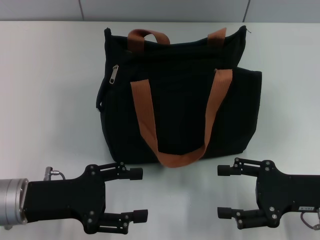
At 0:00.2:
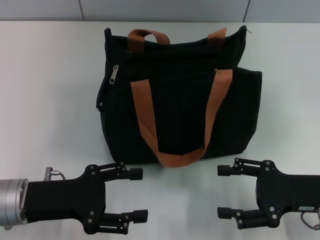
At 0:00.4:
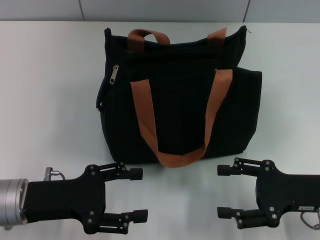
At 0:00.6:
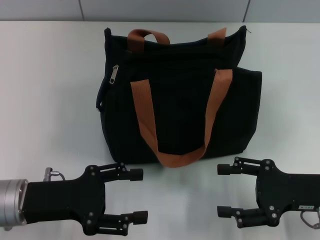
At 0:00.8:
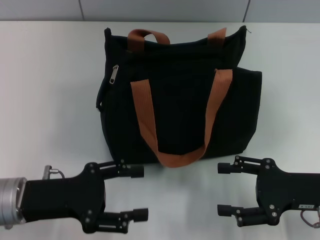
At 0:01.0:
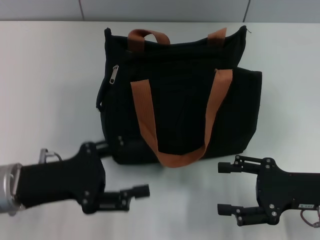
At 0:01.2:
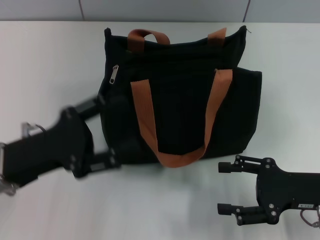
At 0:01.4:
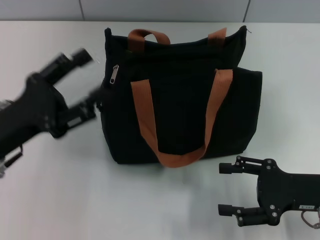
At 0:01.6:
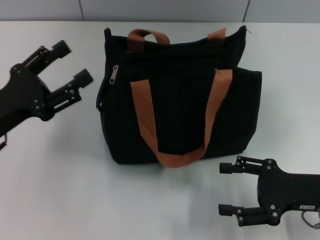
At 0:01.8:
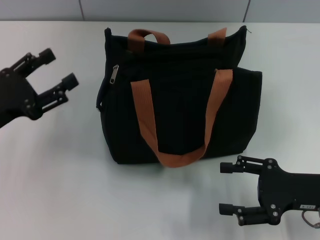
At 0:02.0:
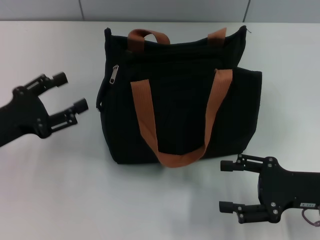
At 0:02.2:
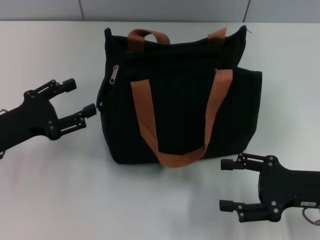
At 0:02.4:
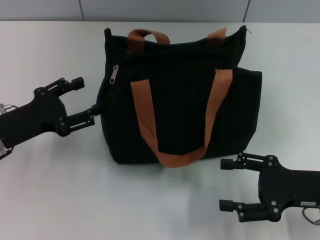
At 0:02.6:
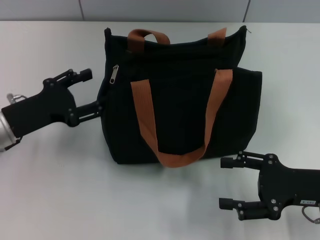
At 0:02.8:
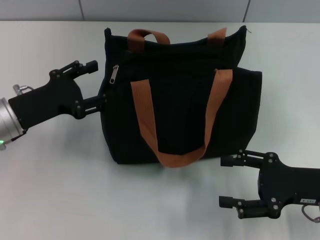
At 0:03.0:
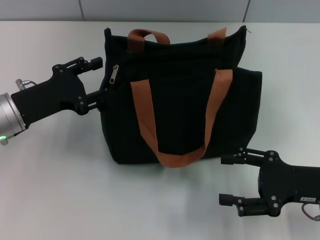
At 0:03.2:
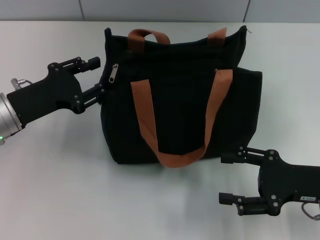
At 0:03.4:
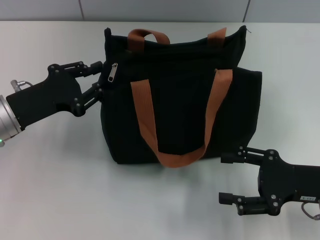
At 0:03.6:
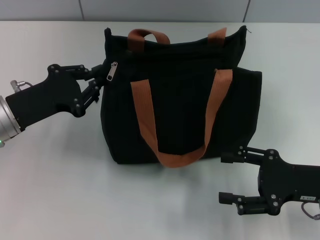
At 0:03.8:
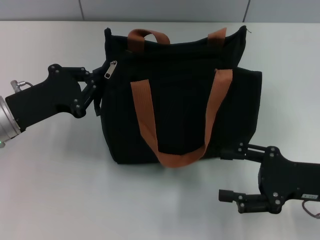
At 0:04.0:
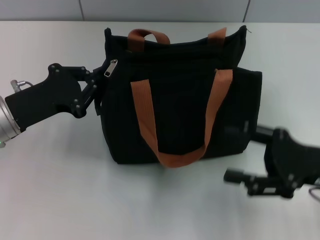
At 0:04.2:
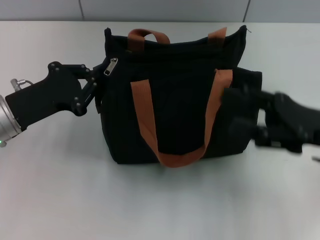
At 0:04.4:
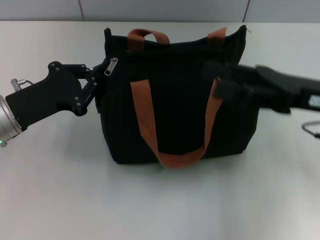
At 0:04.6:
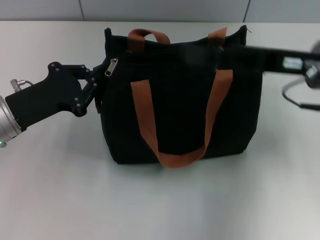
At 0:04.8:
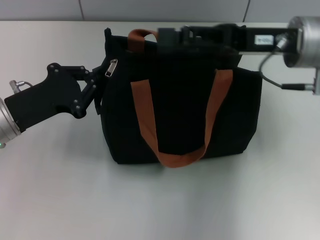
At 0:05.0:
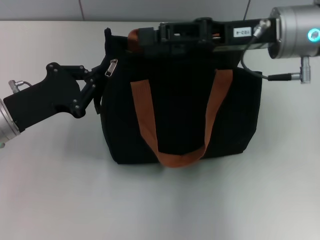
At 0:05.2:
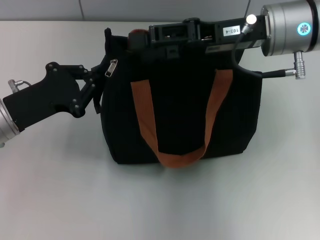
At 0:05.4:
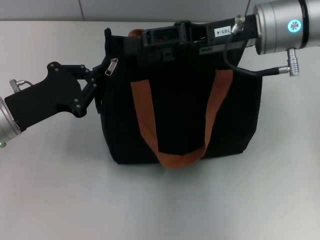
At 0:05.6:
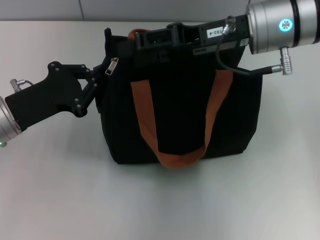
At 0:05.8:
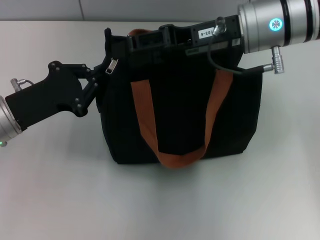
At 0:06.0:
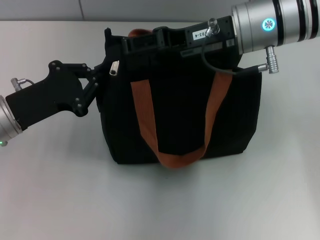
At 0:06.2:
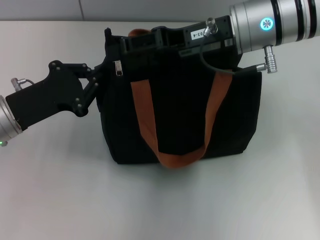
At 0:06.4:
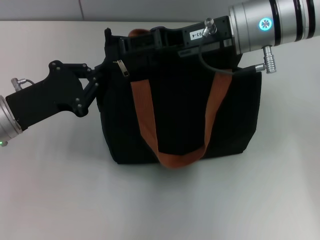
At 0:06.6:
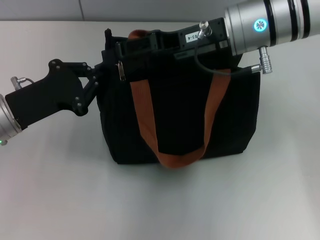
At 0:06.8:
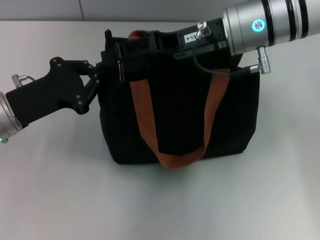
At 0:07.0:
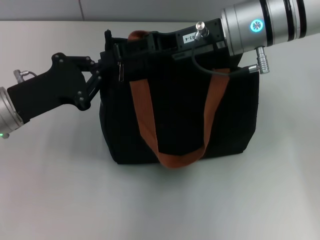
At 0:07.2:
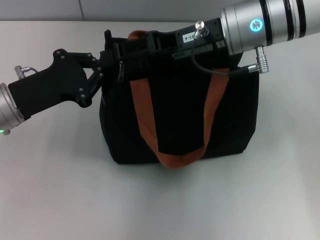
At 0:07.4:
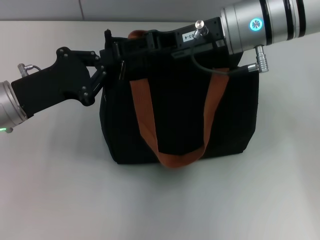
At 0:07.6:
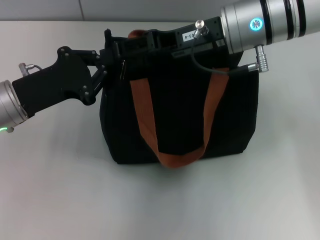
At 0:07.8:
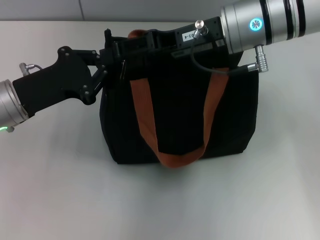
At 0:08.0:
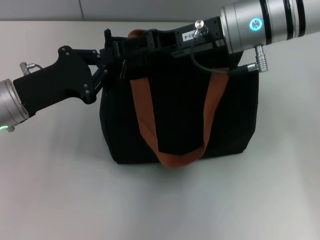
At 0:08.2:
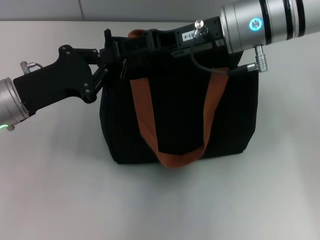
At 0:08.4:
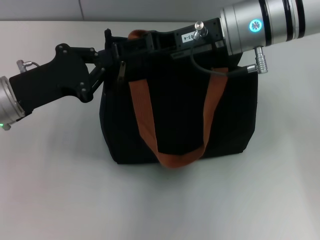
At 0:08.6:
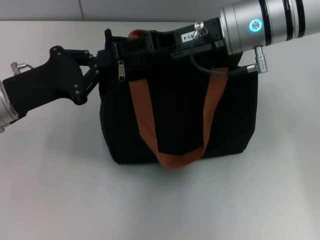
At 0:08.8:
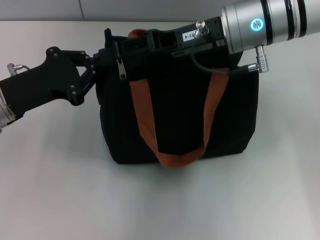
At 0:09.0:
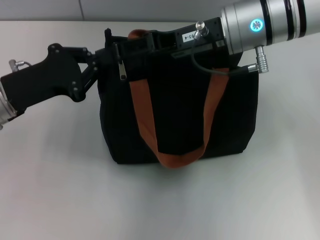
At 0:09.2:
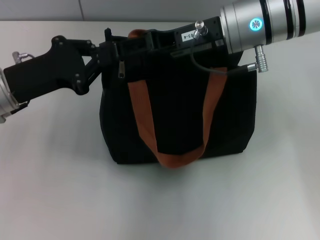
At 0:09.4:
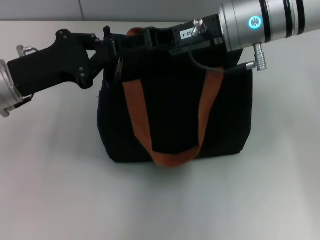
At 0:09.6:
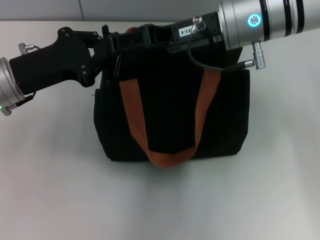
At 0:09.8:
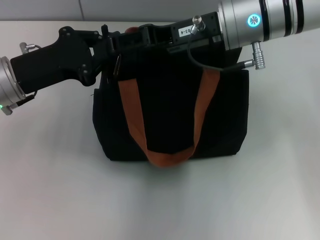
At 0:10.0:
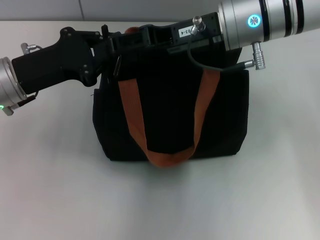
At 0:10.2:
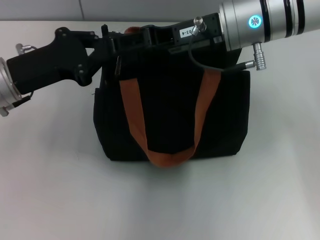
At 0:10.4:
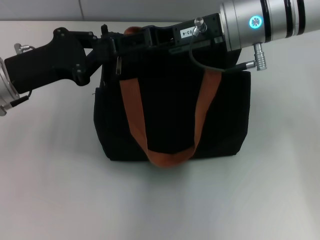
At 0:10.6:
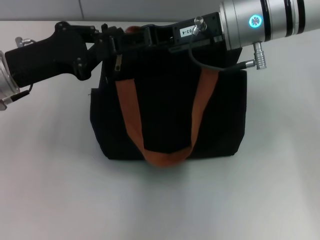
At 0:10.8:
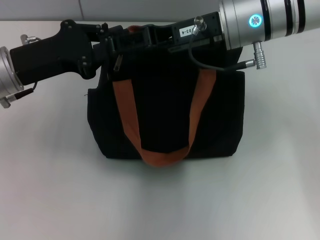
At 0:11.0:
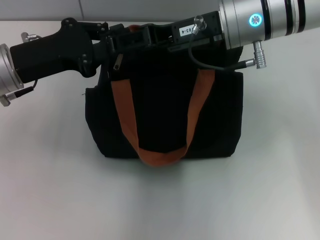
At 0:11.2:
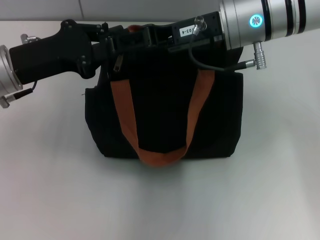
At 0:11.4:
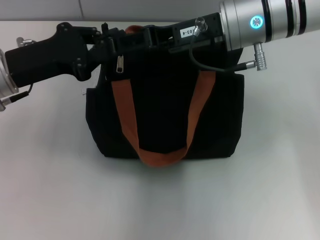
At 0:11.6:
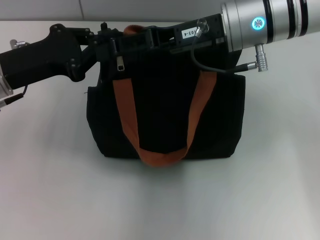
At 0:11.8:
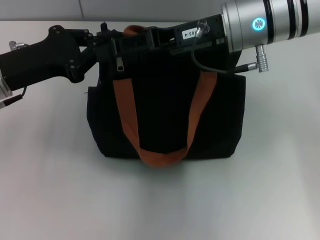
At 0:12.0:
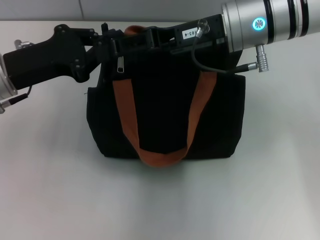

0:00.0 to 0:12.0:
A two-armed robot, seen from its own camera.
0:00.0 to 0:01.6: The left gripper changes place by roughly 5 cm.
0:01.6 to 0:03.0: The left gripper shifts roughly 5 cm forward.
0:03.0 to 0:04.4: The right gripper goes about 10 cm upward and forward, while the left gripper closes up.
0:04.4 to 0:06.0: The right gripper moves to the left, forward and upward, approximately 15 cm.
0:06.0 to 0:10.4: The grippers move only a little.
0:10.4 to 0:12.0: There are only small adjustments of the grippers.

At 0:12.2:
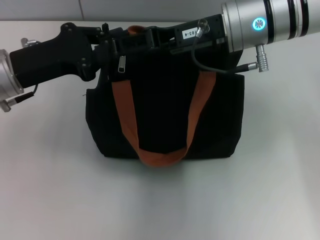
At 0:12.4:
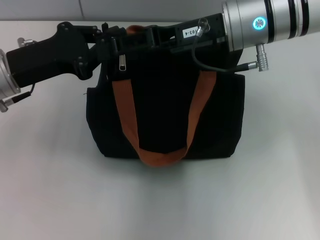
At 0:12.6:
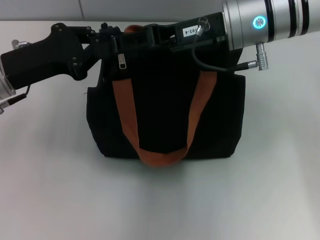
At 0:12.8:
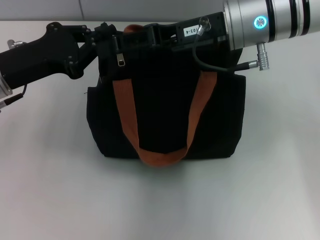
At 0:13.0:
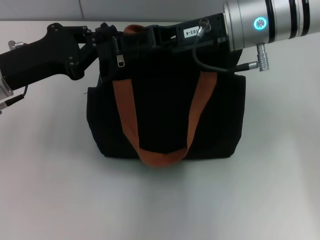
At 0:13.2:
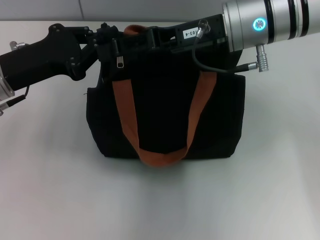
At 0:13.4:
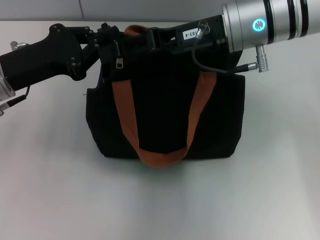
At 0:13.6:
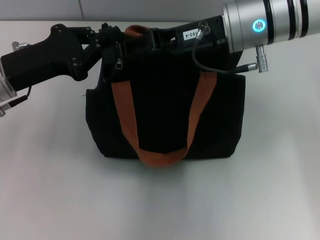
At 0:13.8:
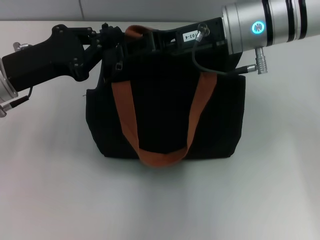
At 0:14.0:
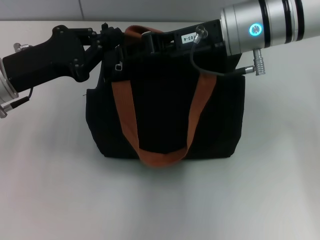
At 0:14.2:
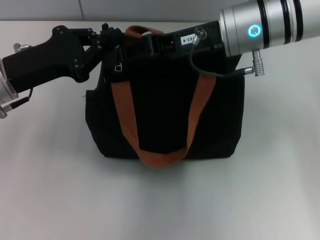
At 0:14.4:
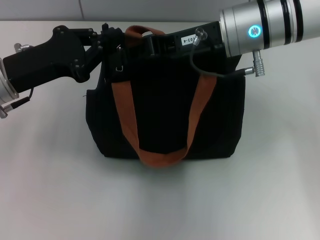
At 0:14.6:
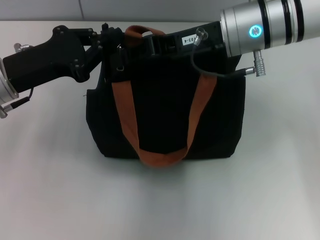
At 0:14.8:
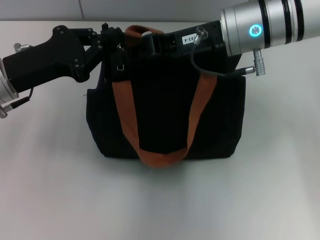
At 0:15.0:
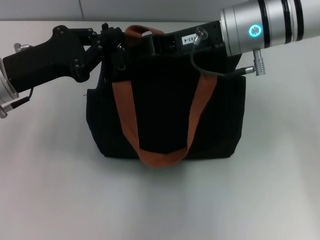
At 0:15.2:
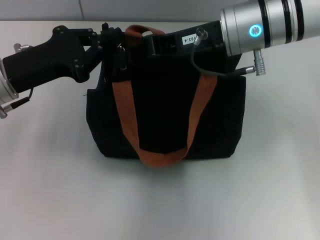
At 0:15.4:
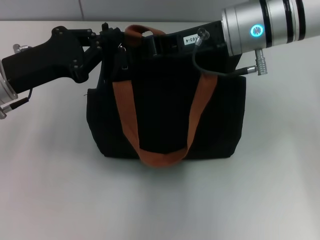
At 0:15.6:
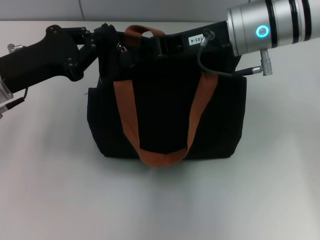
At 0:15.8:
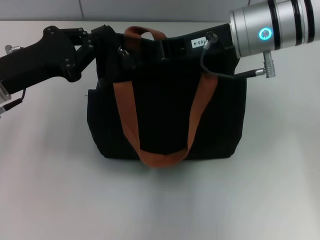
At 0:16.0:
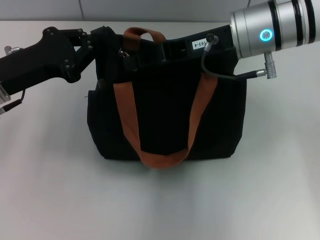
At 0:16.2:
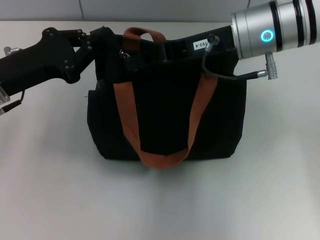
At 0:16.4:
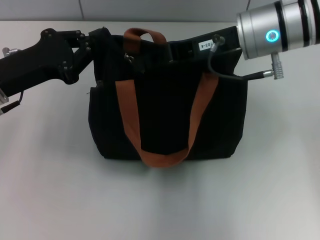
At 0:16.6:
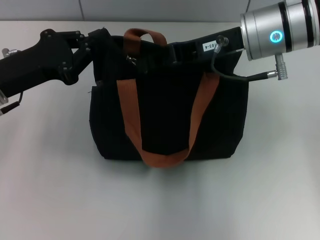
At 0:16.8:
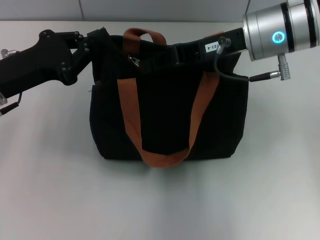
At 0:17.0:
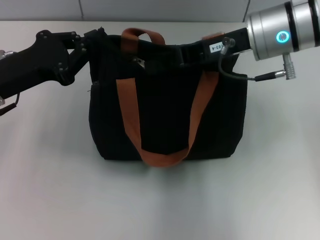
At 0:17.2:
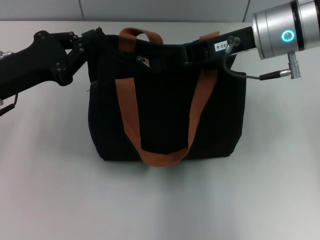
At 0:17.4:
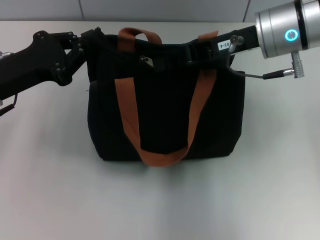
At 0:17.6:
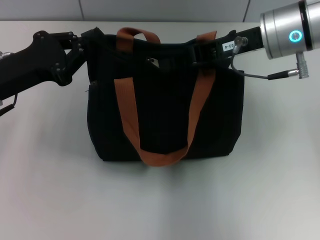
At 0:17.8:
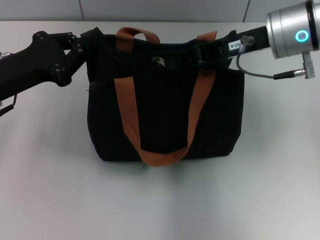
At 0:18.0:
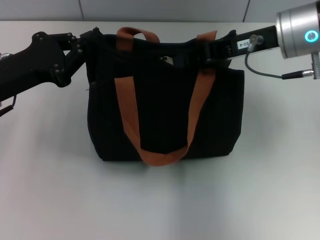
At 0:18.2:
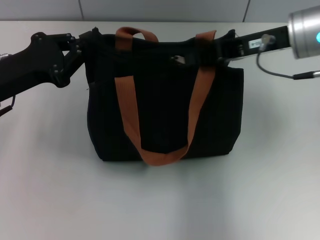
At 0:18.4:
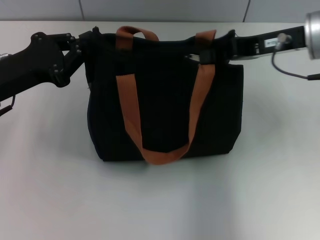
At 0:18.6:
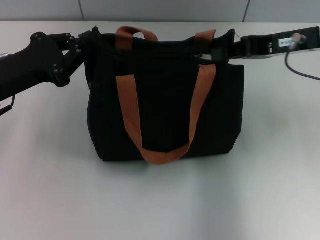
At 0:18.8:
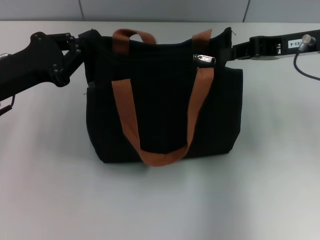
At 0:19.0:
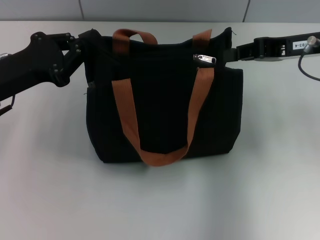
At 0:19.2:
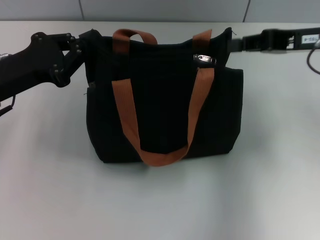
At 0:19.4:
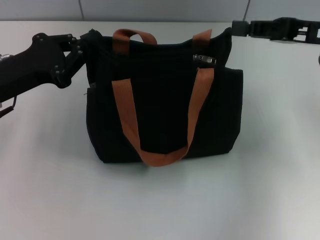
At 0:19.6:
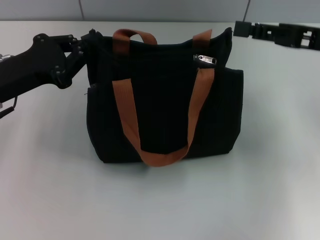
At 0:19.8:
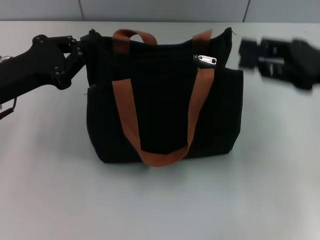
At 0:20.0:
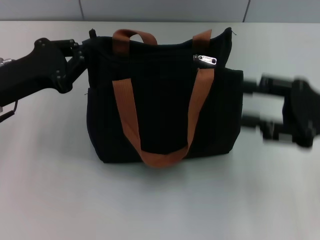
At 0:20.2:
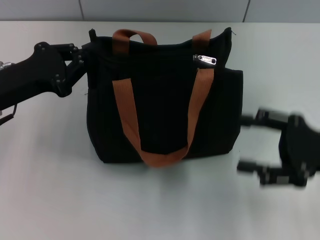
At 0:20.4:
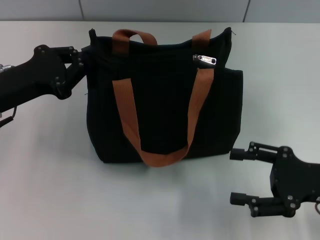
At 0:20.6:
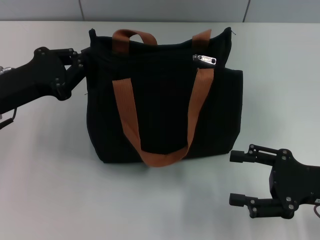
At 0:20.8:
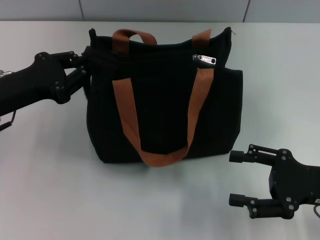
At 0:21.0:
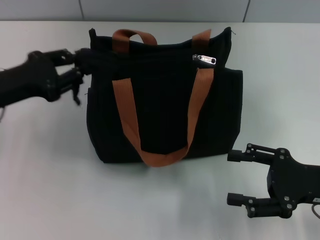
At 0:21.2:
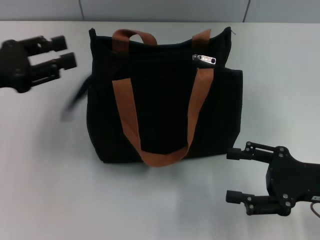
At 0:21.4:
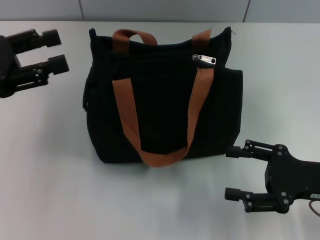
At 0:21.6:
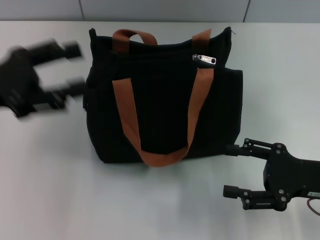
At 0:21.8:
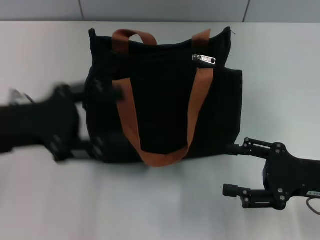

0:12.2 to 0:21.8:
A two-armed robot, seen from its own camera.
Step, 0:12.2 to 0:18.6: Pull up the zipper with your right hand.
0:12.2 to 0:13.8: The right gripper closes.
0:13.8 to 0:15.4: The right gripper closes up.
0:15.4 to 0:17.0: There are only small adjustments of the grippers.
0:17.0 to 0:18.6: The right gripper moves to the right, some 10 cm.
0:18.6 to 0:20.2: The right gripper travels backward, downward and to the right by roughly 15 cm, and opens its fingers.
0:20.2 to 0:21.8: The left gripper opens up.

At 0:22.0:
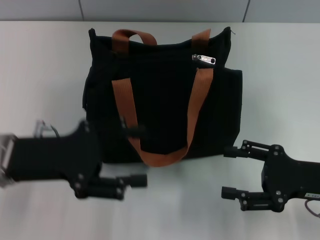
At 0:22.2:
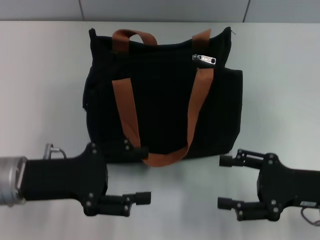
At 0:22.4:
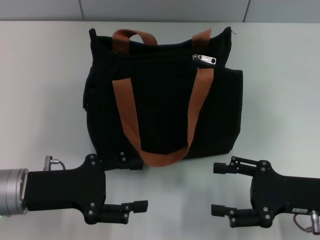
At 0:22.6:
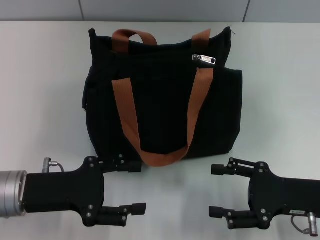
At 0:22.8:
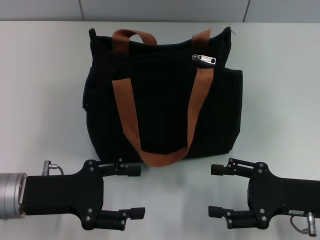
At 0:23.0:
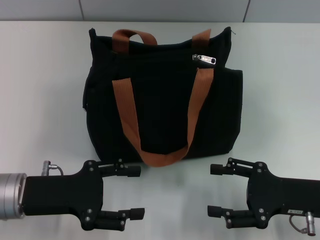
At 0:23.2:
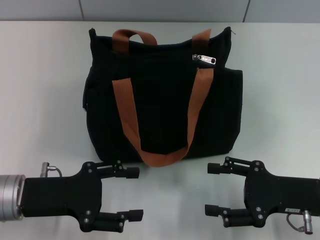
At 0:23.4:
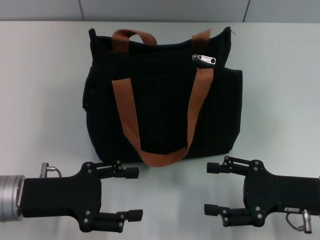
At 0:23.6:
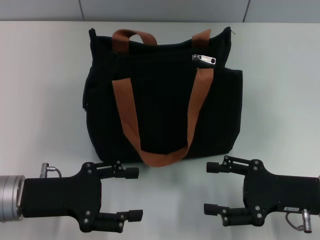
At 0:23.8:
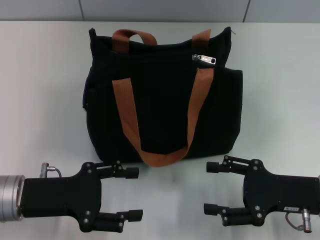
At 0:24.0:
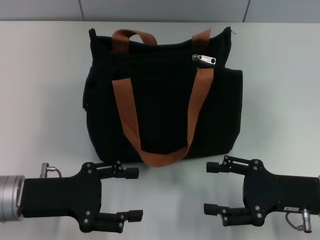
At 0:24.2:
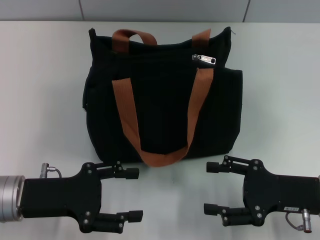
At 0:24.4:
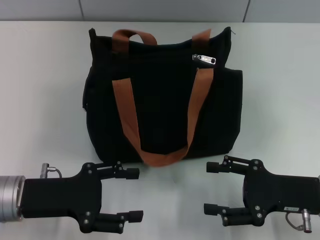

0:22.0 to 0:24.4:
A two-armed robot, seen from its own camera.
0:22.0 to 0:23.2: The left gripper heads downward, covering roughly 5 cm.
0:23.2 to 0:24.4: Neither gripper changes place.
